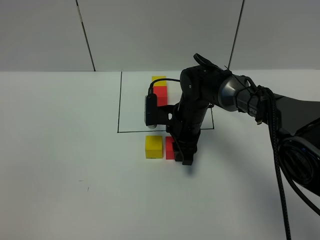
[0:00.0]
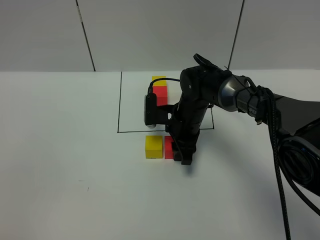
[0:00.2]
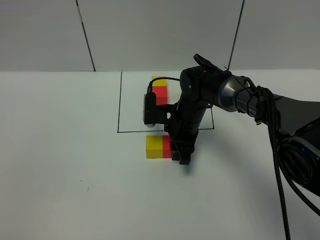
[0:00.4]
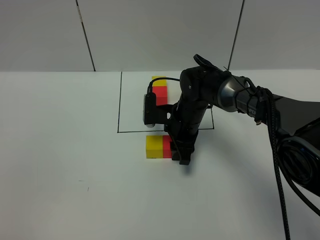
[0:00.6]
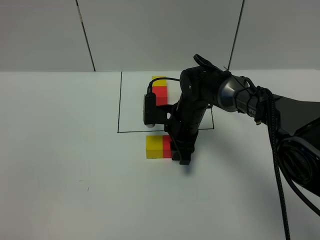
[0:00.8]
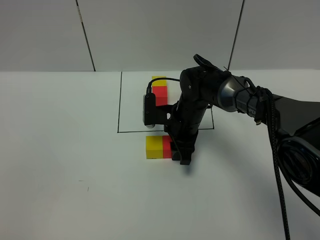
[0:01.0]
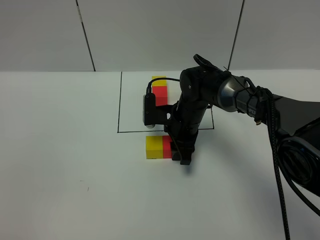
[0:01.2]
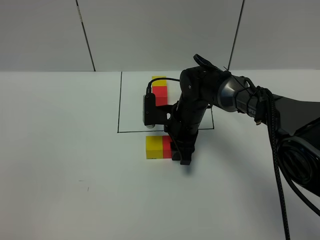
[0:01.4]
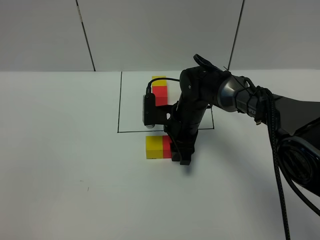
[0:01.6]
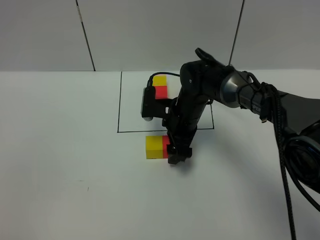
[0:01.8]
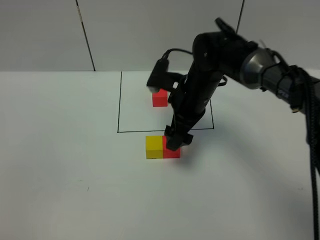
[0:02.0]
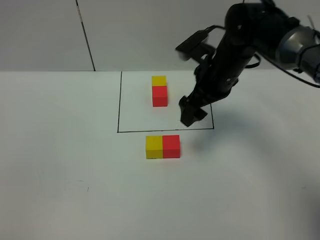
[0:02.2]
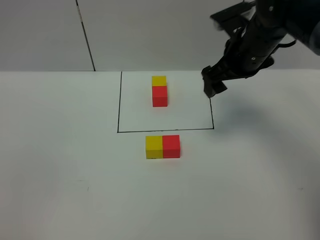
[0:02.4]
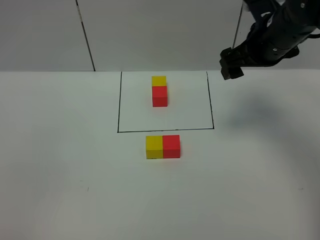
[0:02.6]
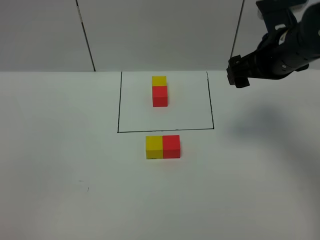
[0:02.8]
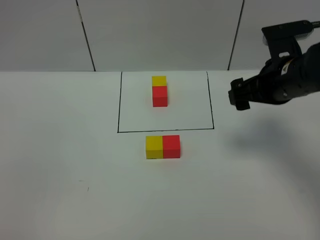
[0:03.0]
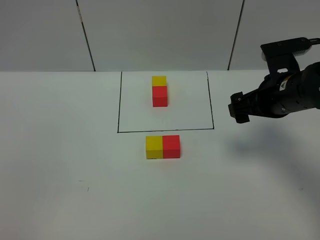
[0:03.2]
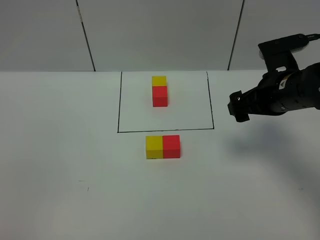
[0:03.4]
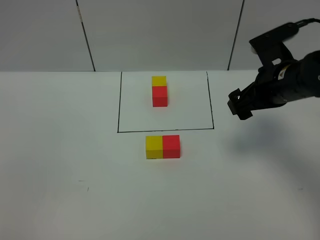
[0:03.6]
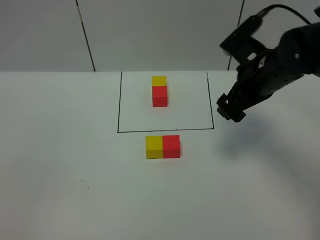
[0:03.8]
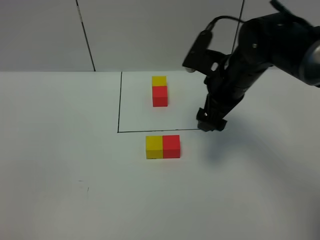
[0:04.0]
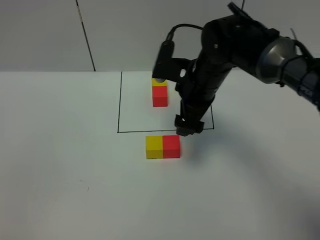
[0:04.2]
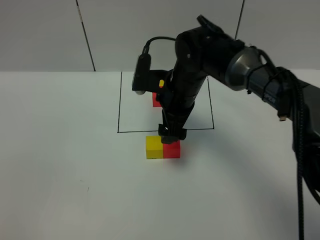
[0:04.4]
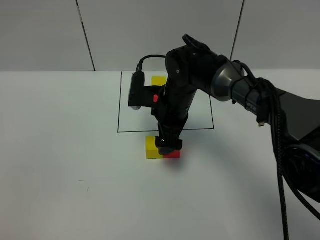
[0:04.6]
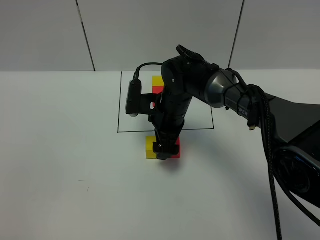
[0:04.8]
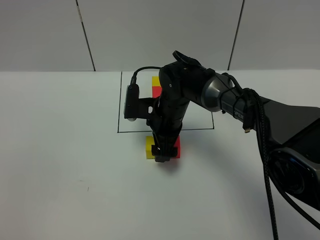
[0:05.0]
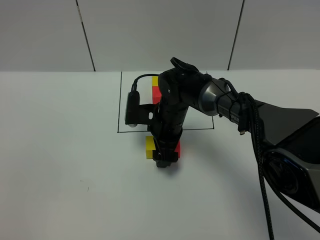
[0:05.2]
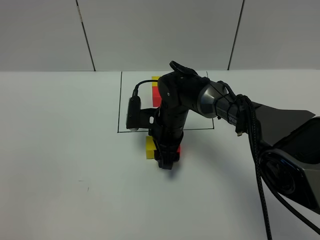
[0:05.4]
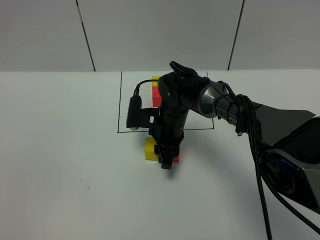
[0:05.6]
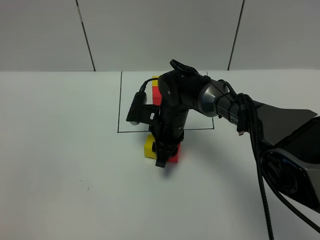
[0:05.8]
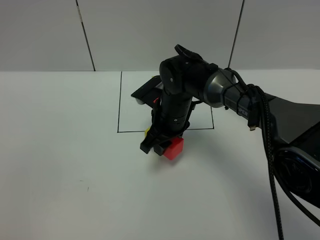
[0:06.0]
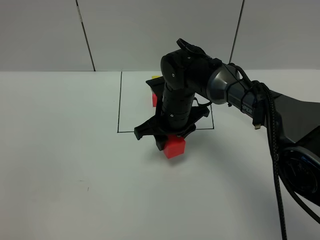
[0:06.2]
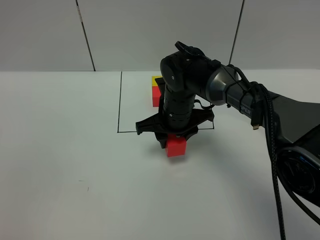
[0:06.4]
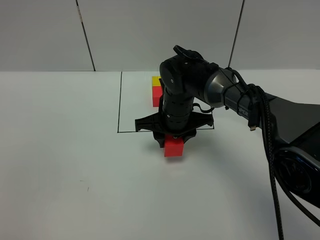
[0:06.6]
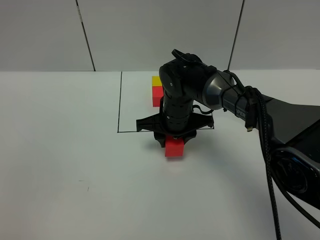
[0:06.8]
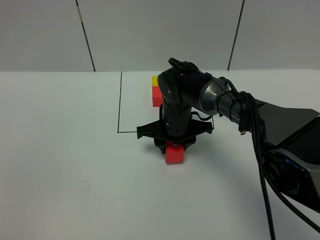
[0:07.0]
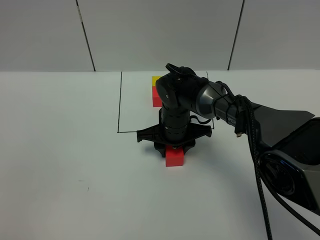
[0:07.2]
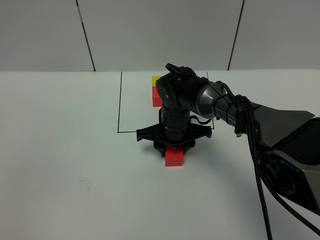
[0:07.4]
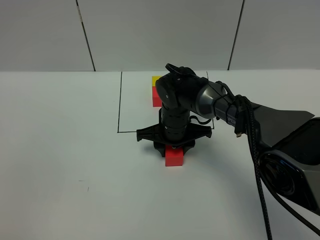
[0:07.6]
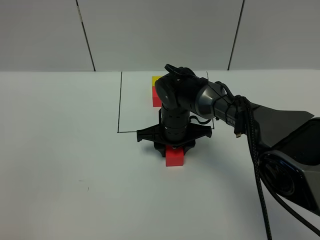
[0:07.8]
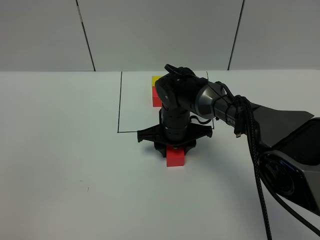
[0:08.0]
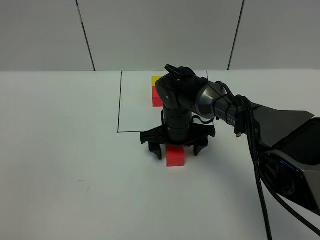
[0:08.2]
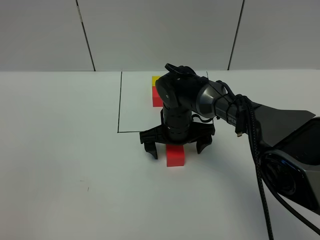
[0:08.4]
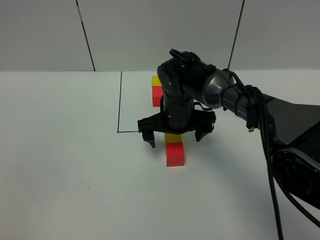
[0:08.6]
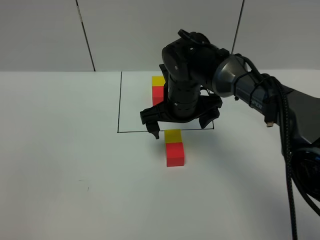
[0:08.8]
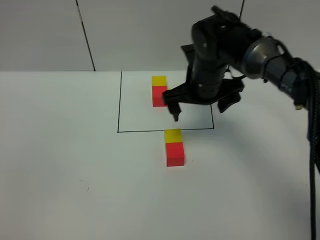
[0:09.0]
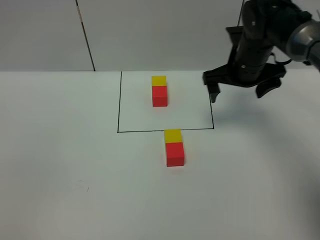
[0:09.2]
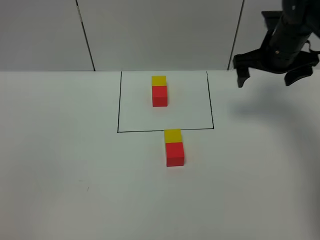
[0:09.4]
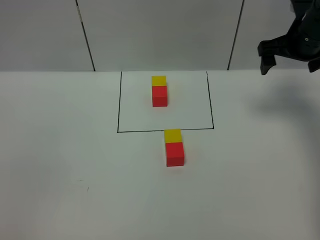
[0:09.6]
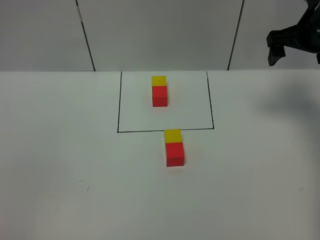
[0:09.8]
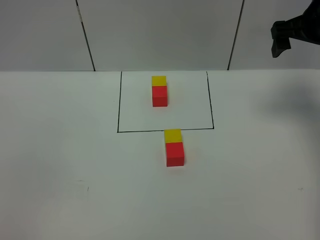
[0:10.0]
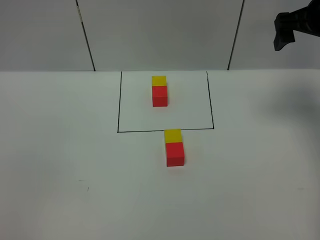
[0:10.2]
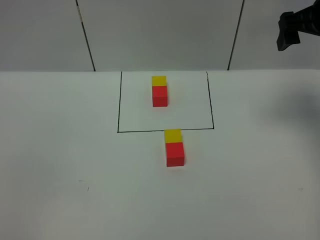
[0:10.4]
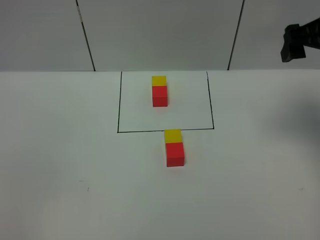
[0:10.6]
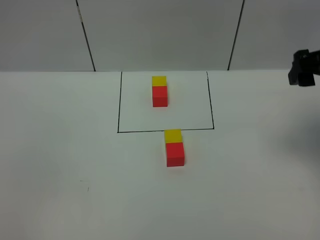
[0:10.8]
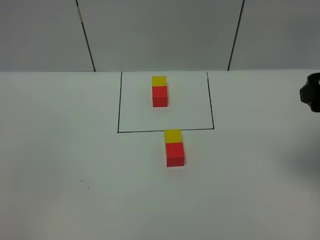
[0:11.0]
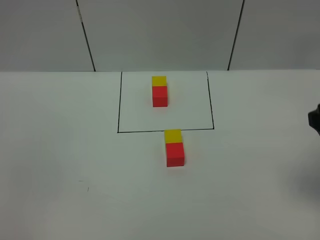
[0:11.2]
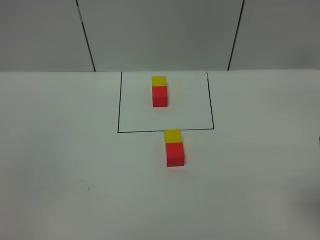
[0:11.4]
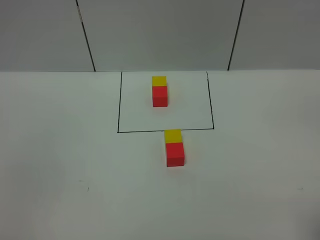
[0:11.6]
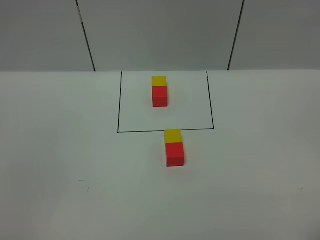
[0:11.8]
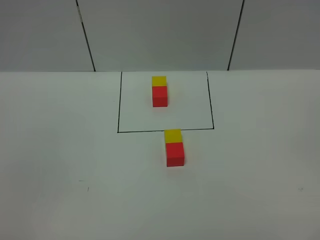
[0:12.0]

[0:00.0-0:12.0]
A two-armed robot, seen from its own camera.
Task of the whole recording: According to the building block template in front, assemble the scattered blocks together.
Step, 0:01.8 to 0:08.0: Adjust the pose of the building blocks.
0:00.0 to 0:01.6: Neither gripper changes place.
0:01.6 to 0:03.0: The right gripper heads to the right, upward and backward, covering approximately 20 cm, and opens its fingers.
0:03.0 to 0:04.4: The right gripper is displaced to the left by about 15 cm.
0:04.4 to 0:06.0: The right gripper closes up.
0:07.6 to 0:09.0: The right gripper is displaced upward and to the right by roughly 15 cm, and opens.
0:09.0 to 0:10.4: The right gripper shifts about 20 cm to the right and upward.
0:10.4 to 0:12.0: The right gripper shifts roughly 35 cm backward.

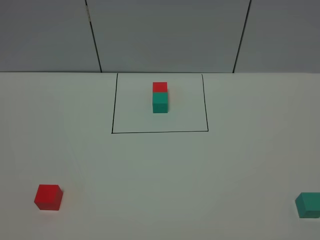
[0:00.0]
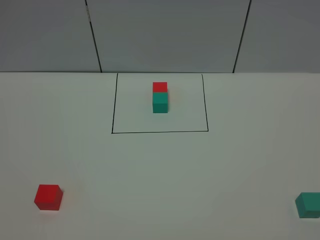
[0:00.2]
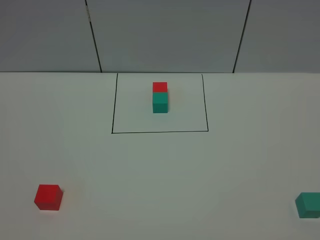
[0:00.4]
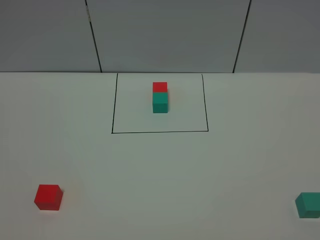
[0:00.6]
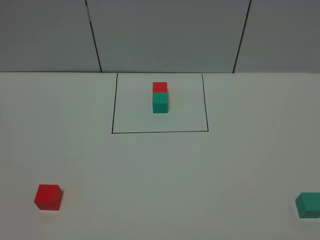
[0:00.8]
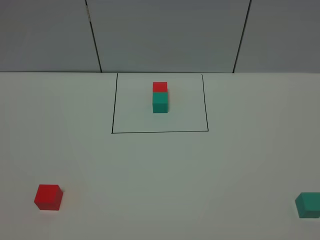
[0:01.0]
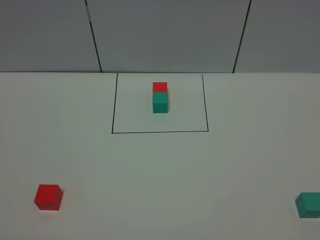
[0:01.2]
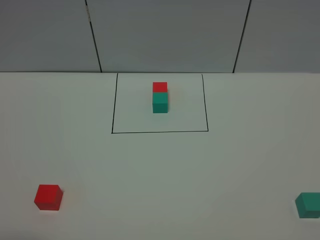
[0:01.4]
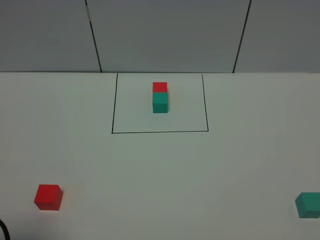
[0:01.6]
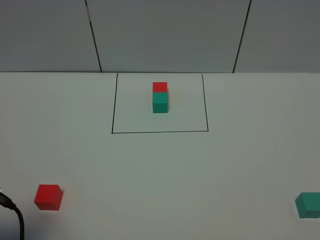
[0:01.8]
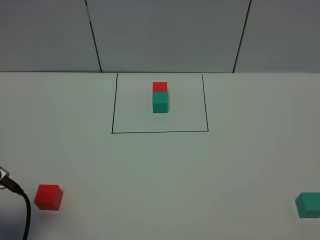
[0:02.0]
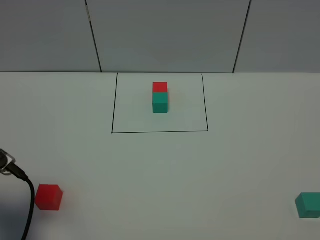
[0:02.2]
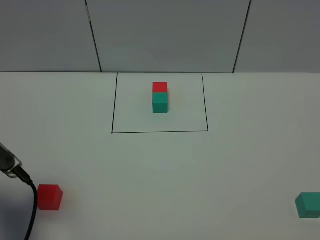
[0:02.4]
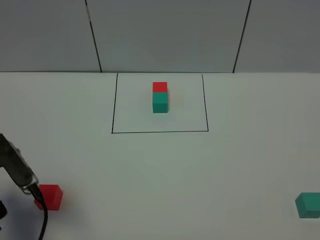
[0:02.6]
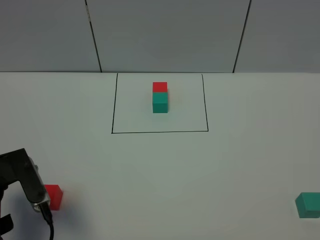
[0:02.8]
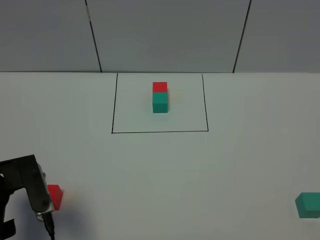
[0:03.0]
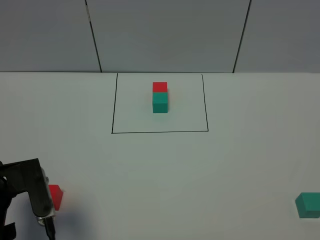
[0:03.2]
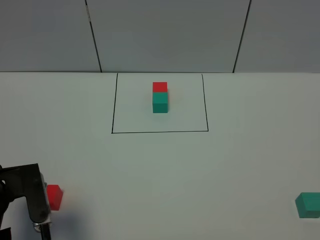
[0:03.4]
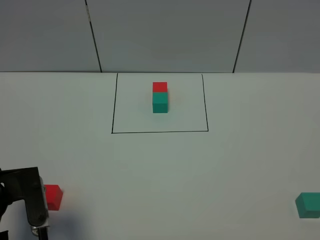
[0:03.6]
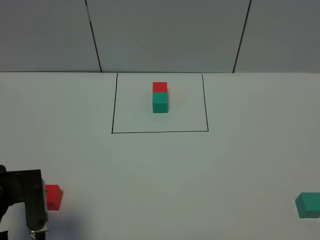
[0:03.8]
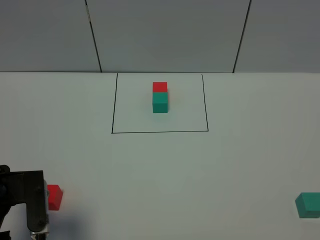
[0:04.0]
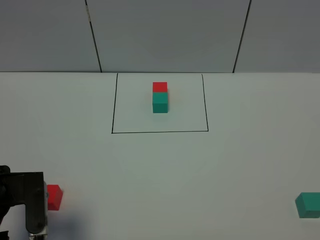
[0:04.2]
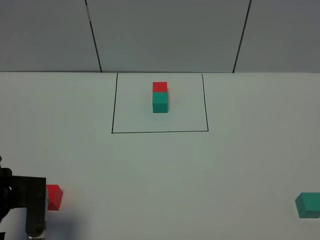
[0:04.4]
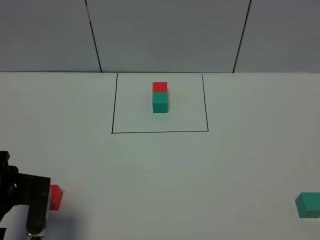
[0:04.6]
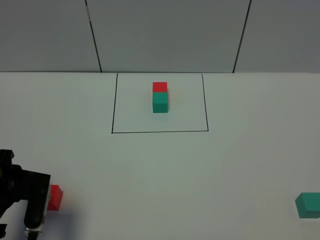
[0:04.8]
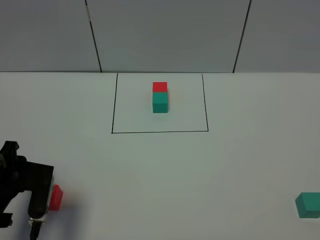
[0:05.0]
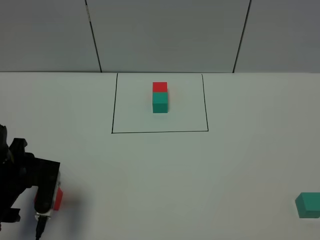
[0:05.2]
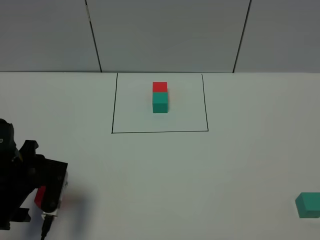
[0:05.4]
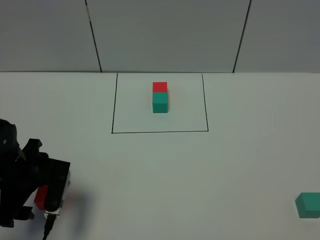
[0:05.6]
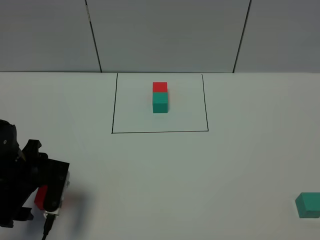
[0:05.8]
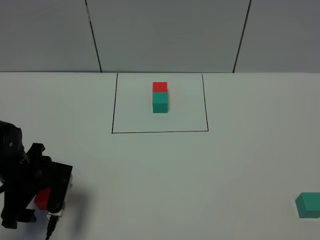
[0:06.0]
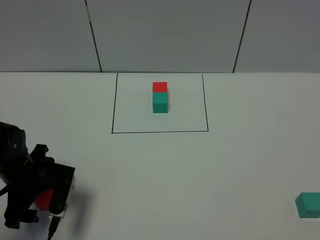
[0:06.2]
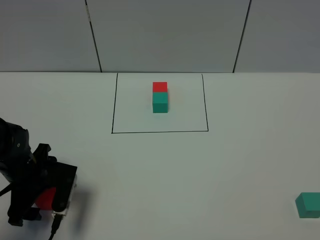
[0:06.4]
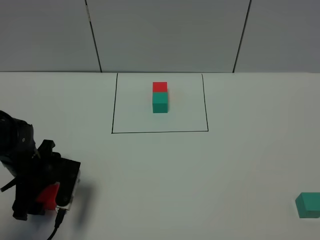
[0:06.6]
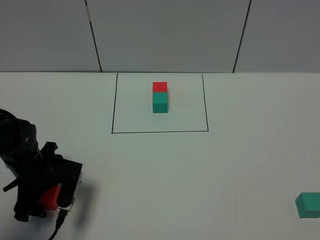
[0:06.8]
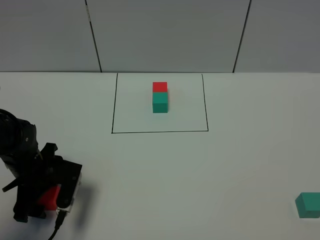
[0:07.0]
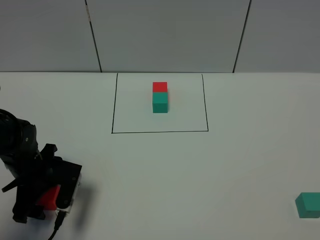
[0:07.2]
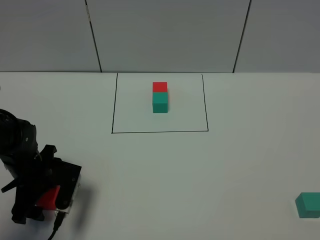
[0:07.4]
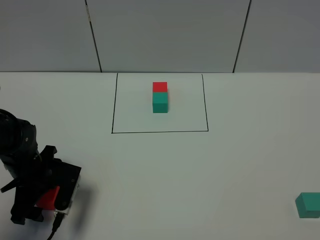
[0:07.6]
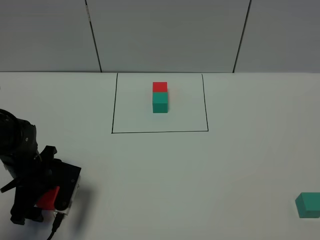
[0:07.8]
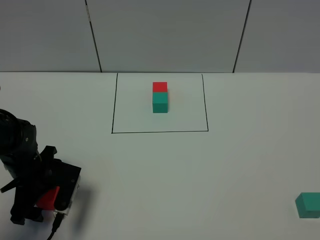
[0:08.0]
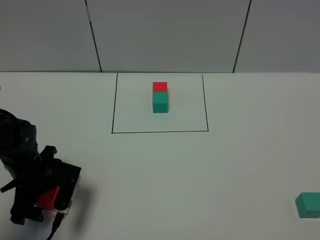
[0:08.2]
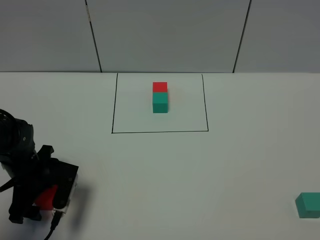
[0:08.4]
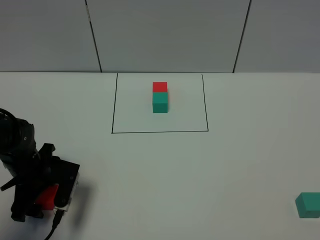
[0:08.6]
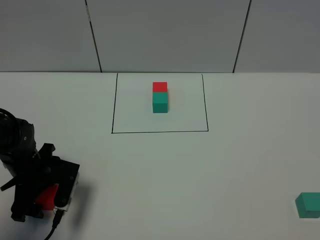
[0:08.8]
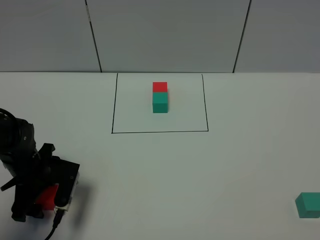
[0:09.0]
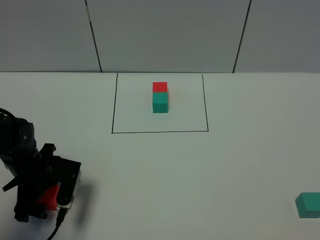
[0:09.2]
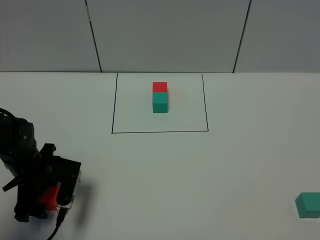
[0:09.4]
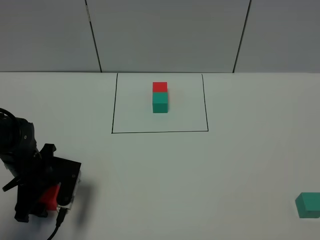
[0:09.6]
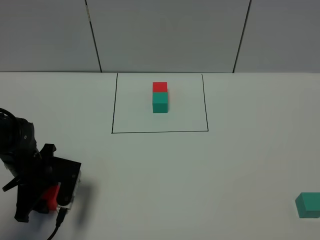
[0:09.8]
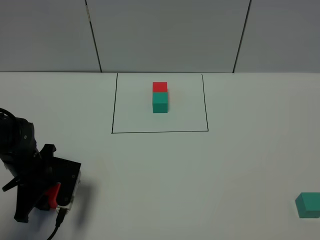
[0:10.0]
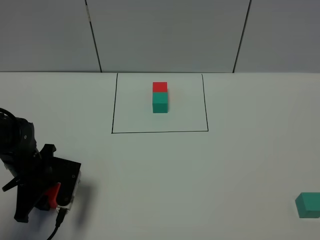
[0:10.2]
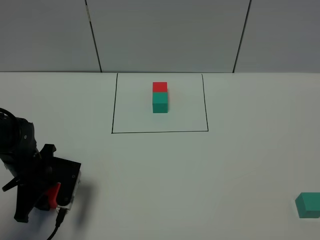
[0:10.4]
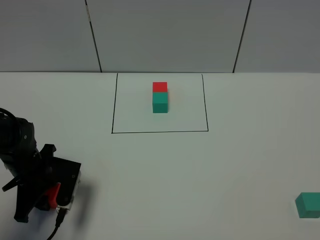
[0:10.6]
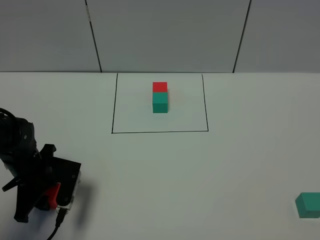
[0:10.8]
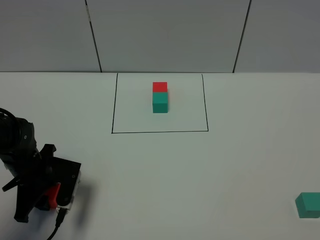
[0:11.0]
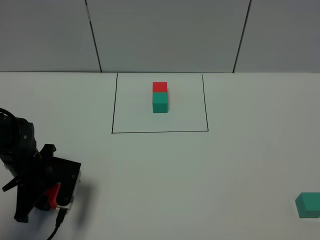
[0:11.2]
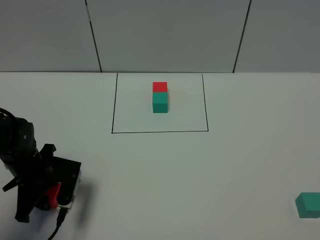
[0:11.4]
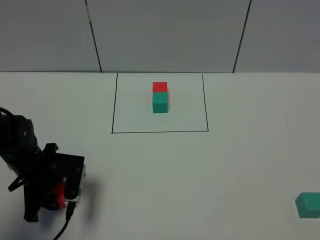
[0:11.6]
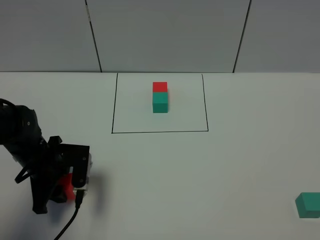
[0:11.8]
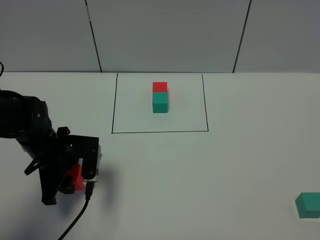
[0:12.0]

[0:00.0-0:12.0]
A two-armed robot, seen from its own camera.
Task of the whole recording: According to the building block template in front, assemble the scattered blocks together.
0:00.0 to 0:01.6: The left gripper heads forward, covering about 10 cm.
0:01.6 to 0:03.0: The left gripper moves forward, roughly 10 cm.
0:03.0 to 0:04.4: The grippers make only small movements.
0:04.4 to 0:06.0: The left gripper is displaced forward and downward by about 10 cm.
0:06.0 to 0:07.6: The grippers move only a little.
0:07.6 to 0:09.0: Both grippers stay put.
0:09.0 to 0:10.4: The left gripper closes its fingers.
0:10.4 to 0:12.0: The left gripper changes place by roughly 5 cm.
